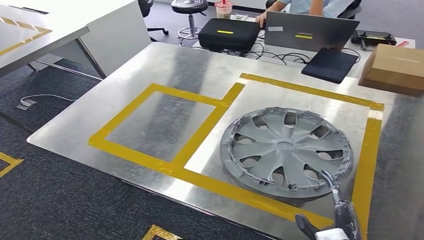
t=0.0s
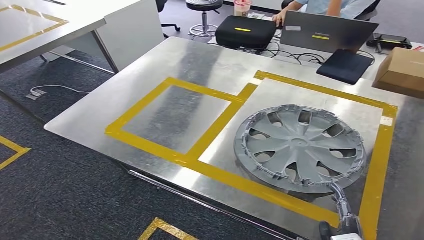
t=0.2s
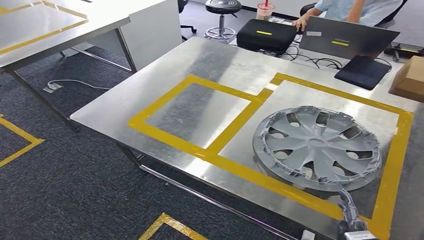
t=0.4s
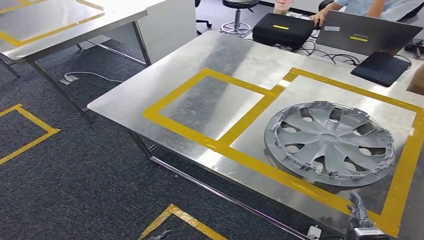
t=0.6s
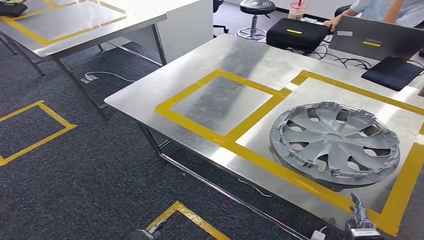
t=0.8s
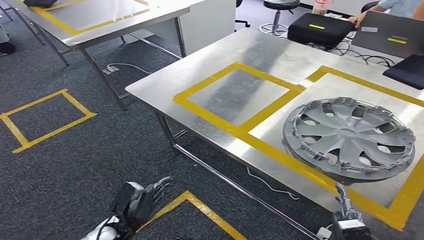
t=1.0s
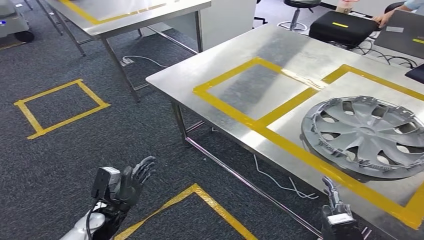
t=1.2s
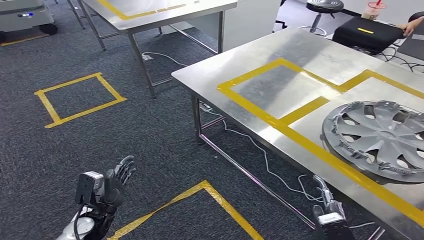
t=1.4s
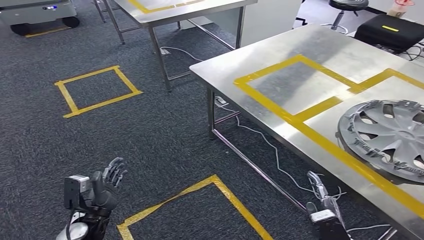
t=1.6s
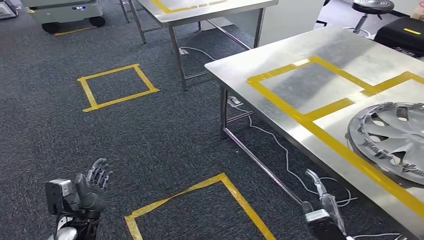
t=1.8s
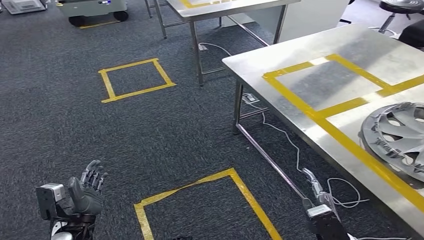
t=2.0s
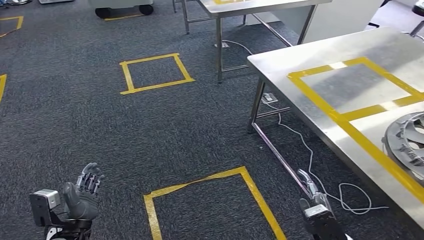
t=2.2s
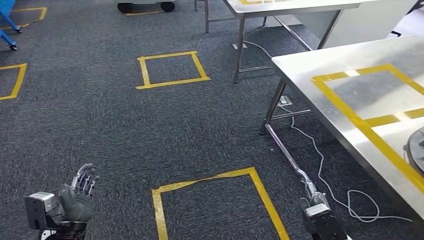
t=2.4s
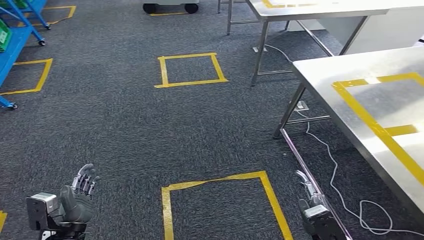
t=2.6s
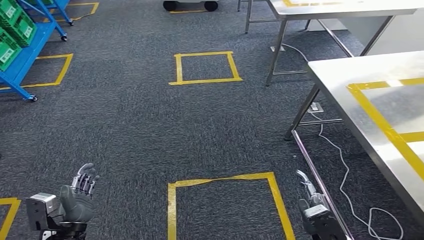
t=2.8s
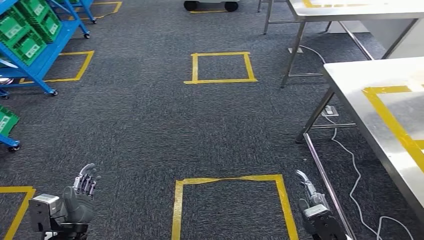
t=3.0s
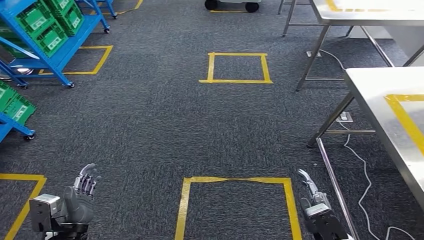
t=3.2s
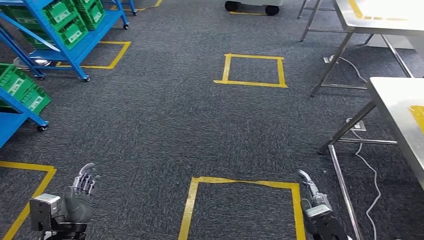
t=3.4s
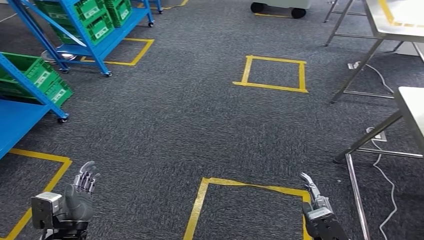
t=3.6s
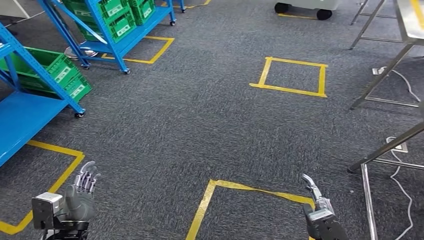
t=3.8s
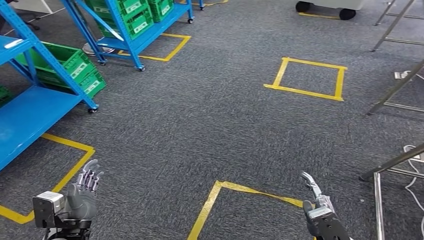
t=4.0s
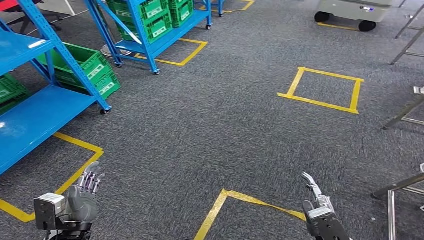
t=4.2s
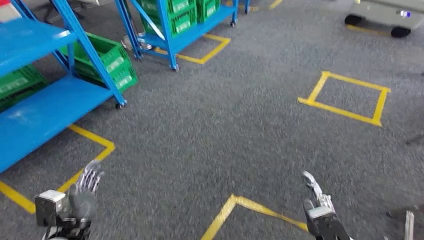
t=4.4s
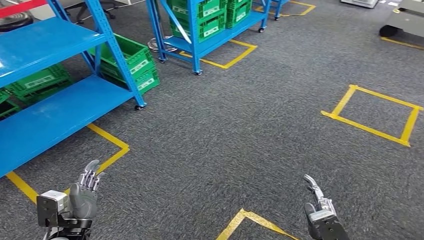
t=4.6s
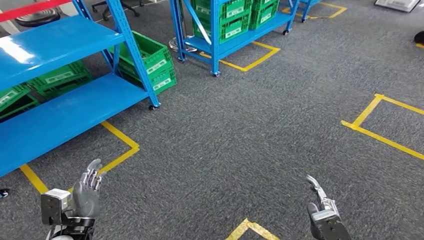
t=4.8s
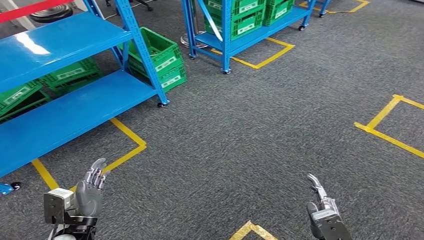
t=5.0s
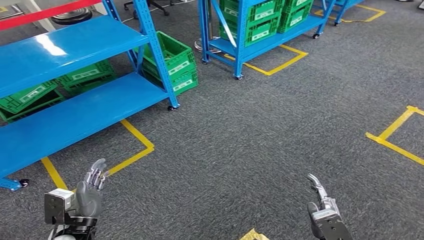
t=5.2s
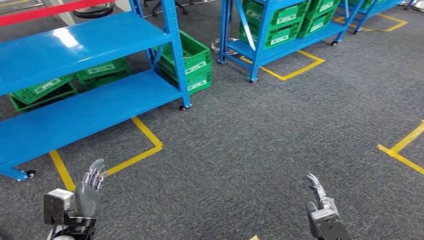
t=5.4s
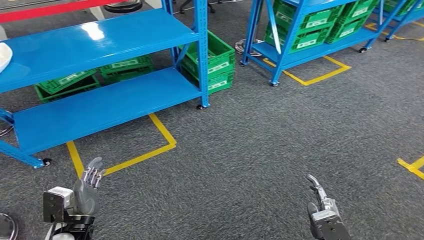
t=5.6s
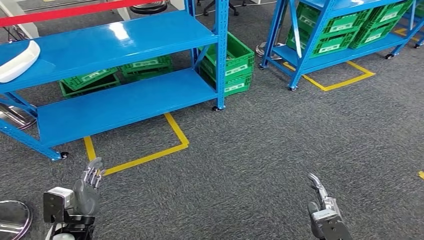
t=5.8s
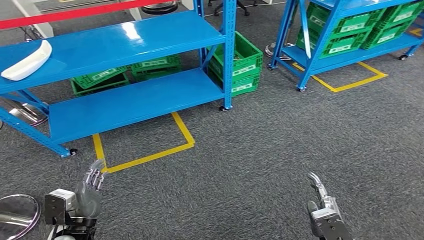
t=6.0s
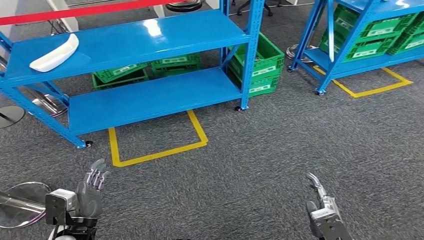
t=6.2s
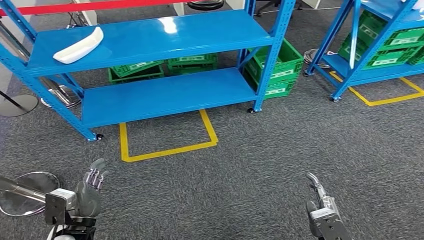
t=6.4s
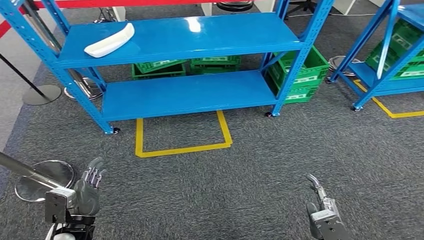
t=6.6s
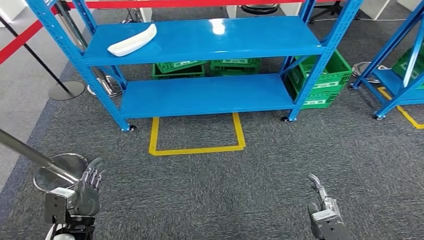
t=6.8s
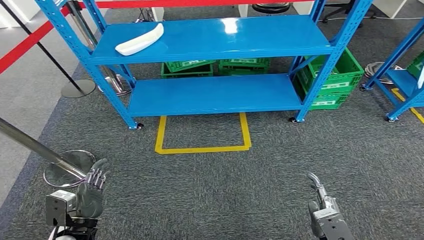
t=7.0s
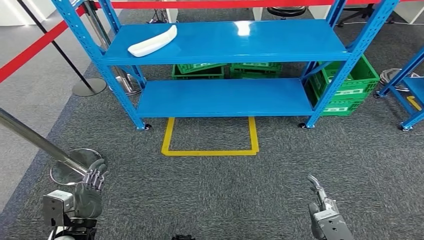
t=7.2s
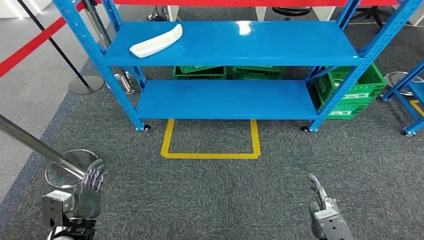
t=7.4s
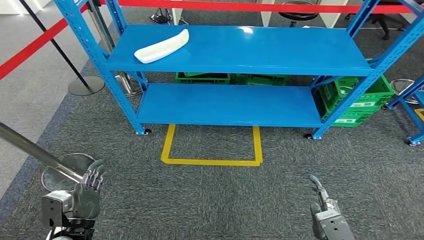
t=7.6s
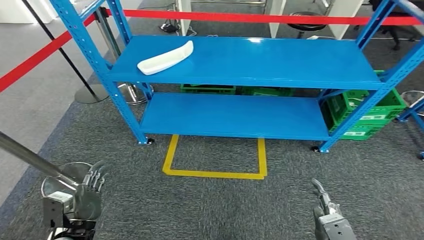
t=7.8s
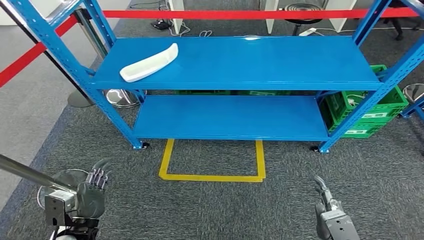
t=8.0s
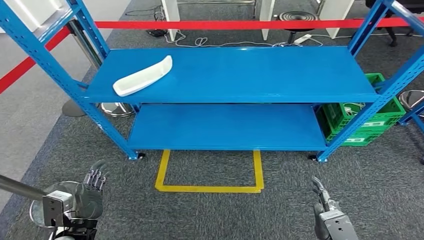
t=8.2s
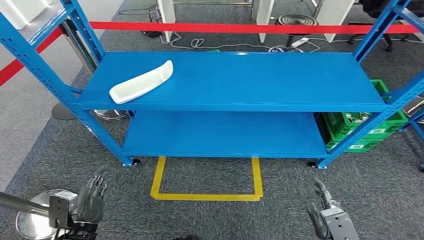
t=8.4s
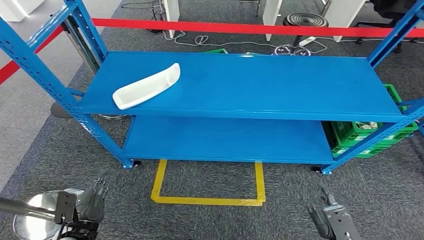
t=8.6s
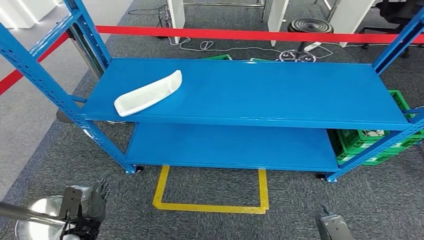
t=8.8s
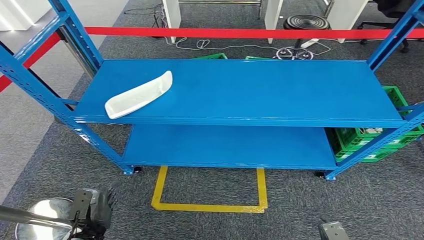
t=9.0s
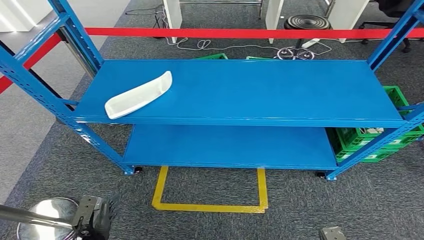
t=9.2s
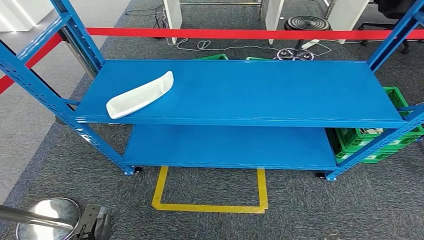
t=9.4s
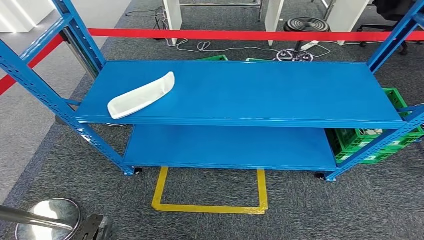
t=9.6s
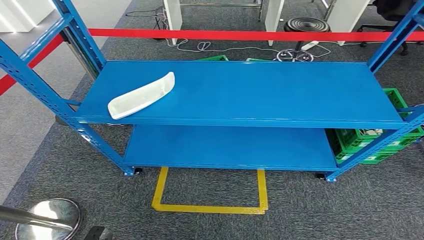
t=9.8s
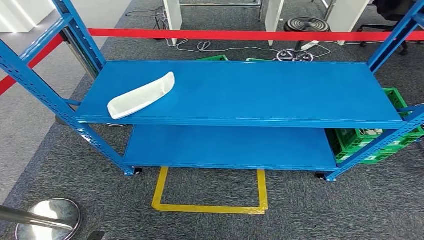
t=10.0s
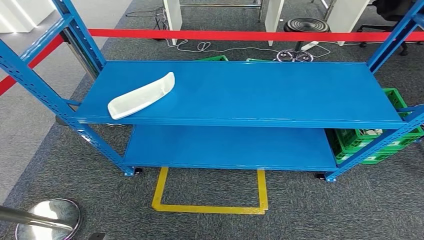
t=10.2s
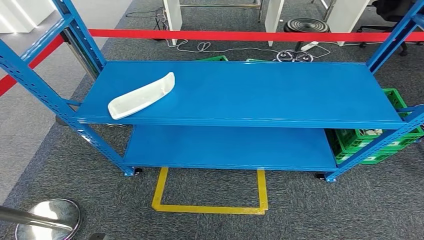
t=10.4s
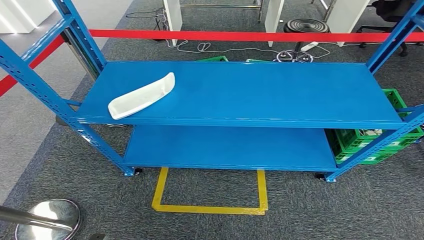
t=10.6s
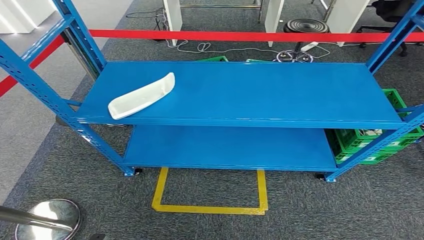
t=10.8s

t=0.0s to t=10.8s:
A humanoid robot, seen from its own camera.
Step, t=1.6s to t=10.8s: Move to the initial position of the workbench.
t=9.2s to t=10.8s: The right hand travels backward by about 5 cm, while the left hand is displaced backward and downward by roughly 10 cm.
